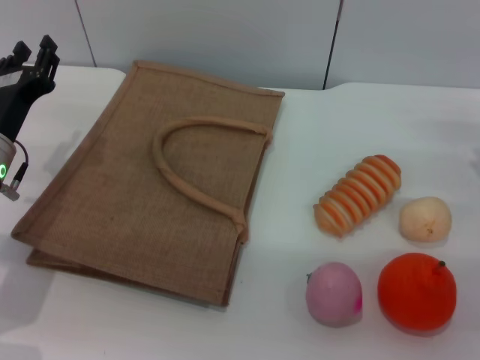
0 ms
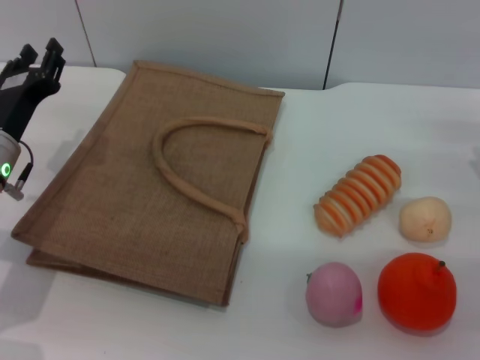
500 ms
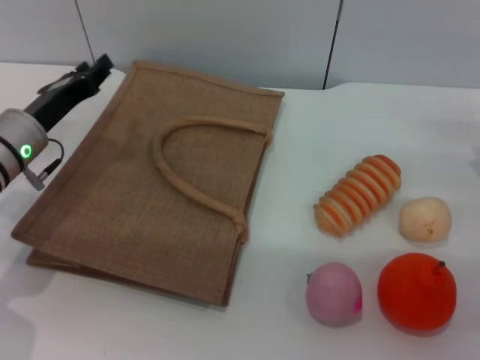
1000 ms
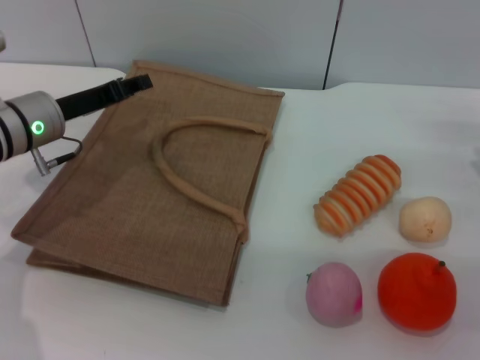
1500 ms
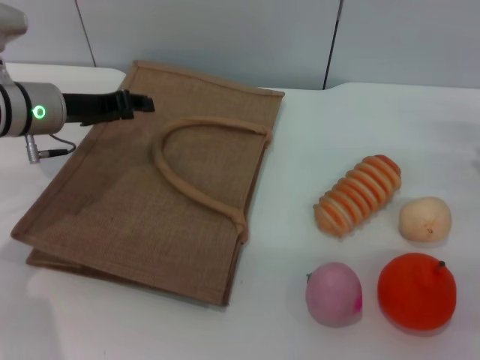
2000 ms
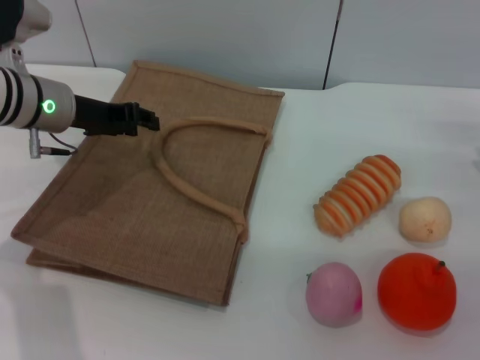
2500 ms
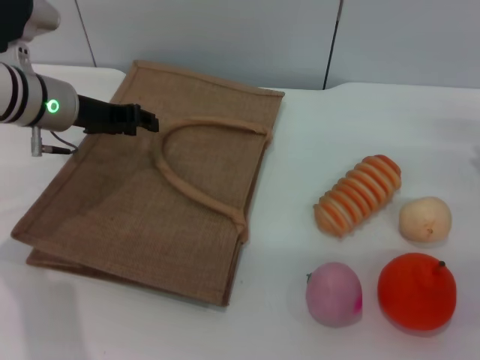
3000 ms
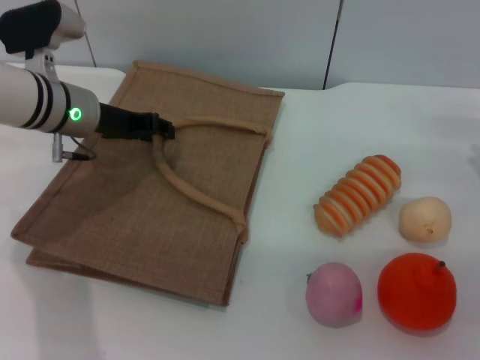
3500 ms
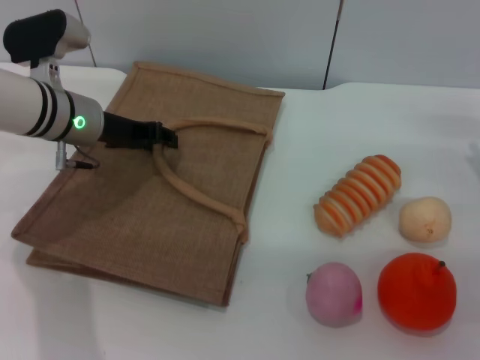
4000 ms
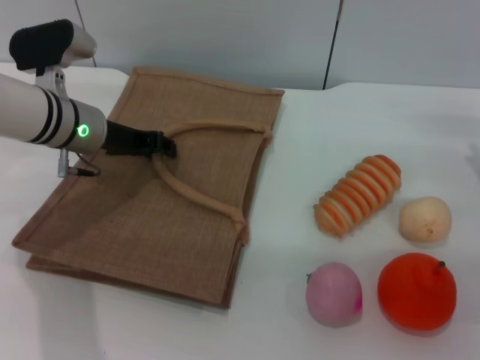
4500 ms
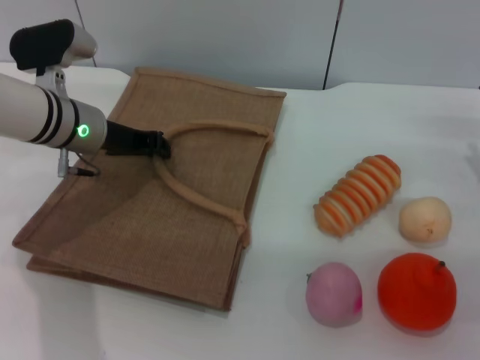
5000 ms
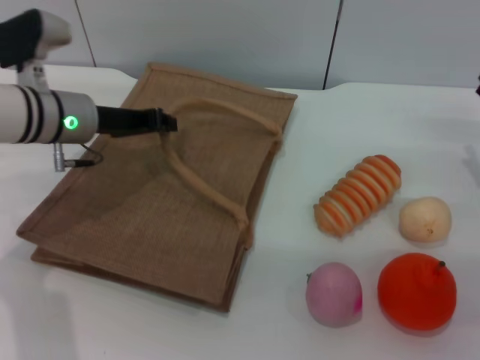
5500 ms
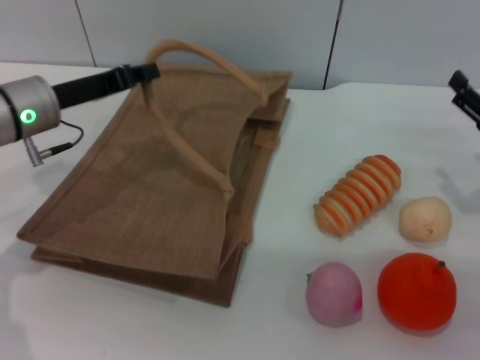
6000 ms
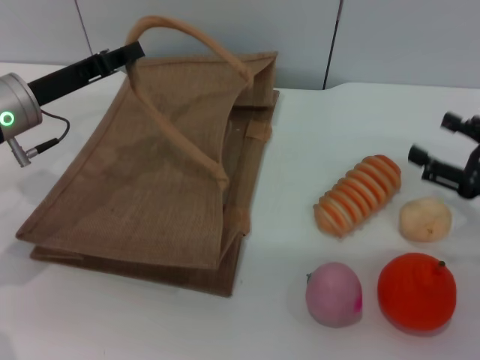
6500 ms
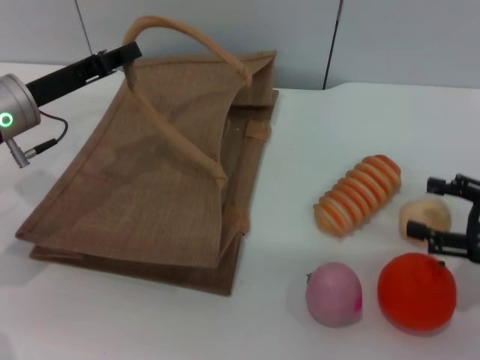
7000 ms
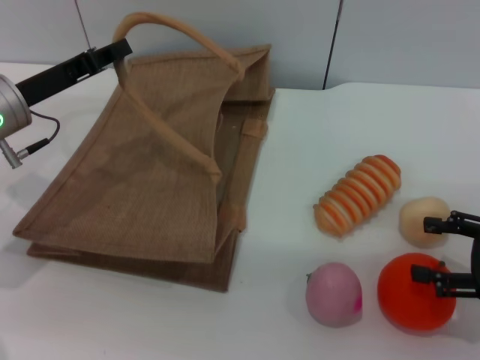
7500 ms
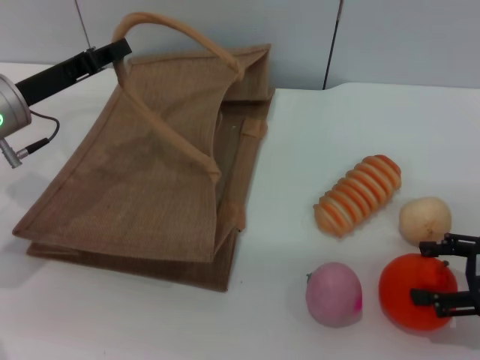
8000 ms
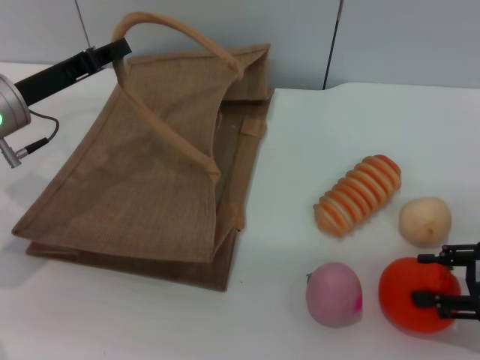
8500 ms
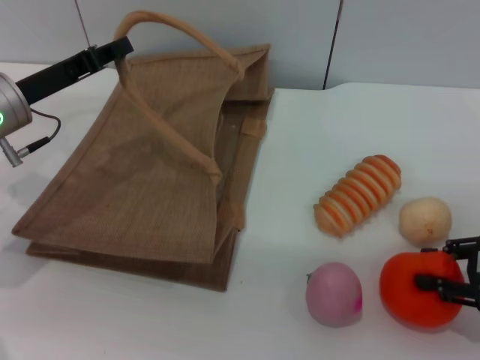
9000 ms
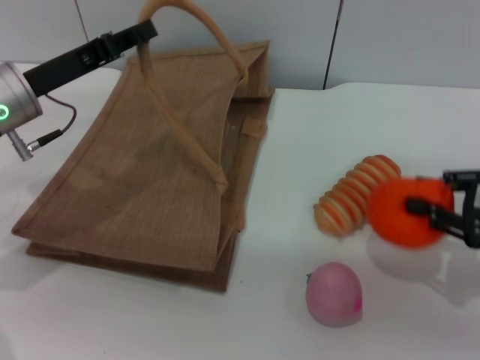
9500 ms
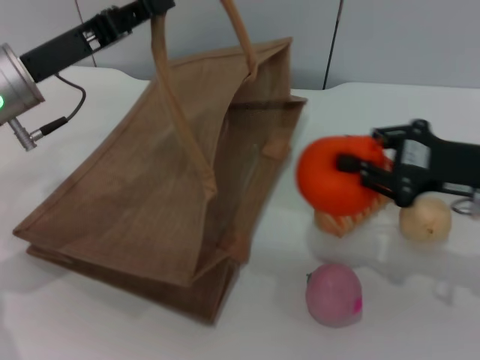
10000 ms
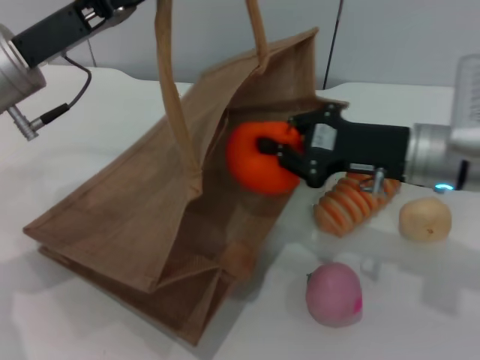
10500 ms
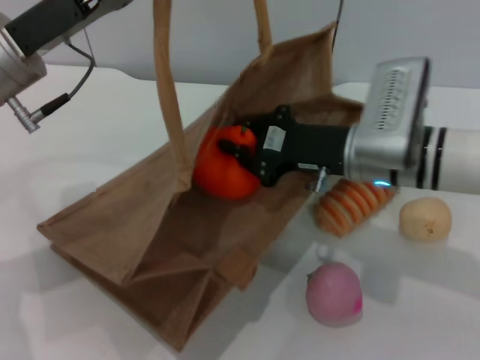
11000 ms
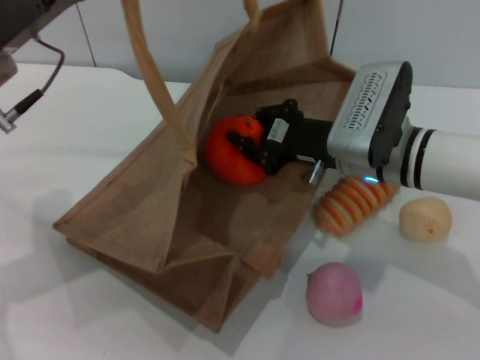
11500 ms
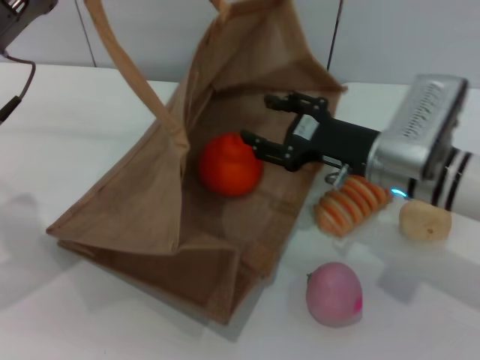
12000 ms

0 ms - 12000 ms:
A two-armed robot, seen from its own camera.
Task of the whole recording: pick up the orange from the table and place it in the brown handbag.
Step, 0 ms - 5500 ms: Lift the woven bag with the left gripper to open it.
Step, 6000 ms - 9500 ms: Pick up the orange with the right gripper.
0 ms - 2000 ms: The left gripper moves forward, approximately 10 cm.
2000 ms - 4000 ms: The grippers stay close to where they were, moving slightly.
4000 ms - 6000 ms: The left gripper shifts by about 5 cm, and closes up.
6000 ms - 8000 ms: The right gripper moves backward, about 5 cm.
8000 ms - 10000 ms: The left gripper shifts by about 5 cm. Meanwhile the right gripper is displaced to the left and forward by some 10 cm, and closes.
10000 ms - 12000 ms: The right gripper goes roughly 10 cm to the left, and opens up.

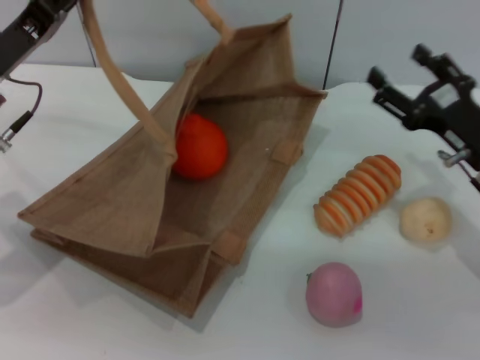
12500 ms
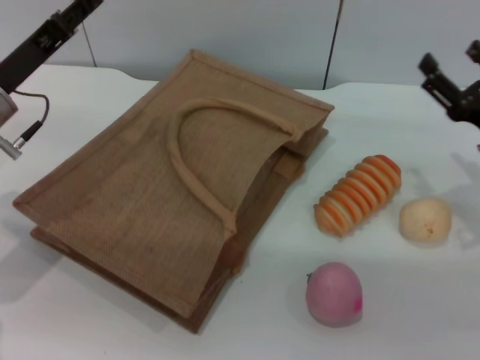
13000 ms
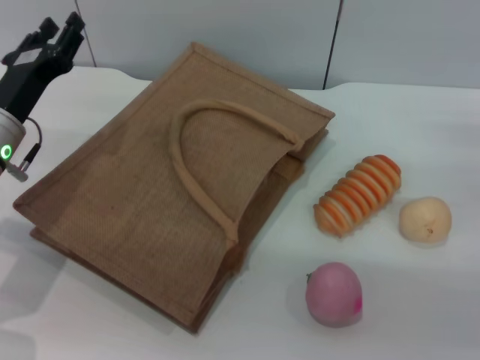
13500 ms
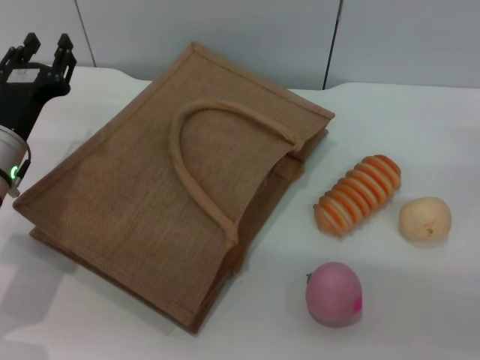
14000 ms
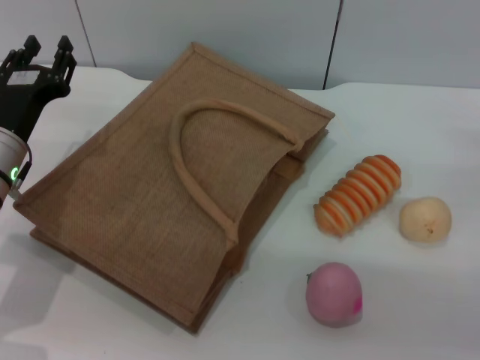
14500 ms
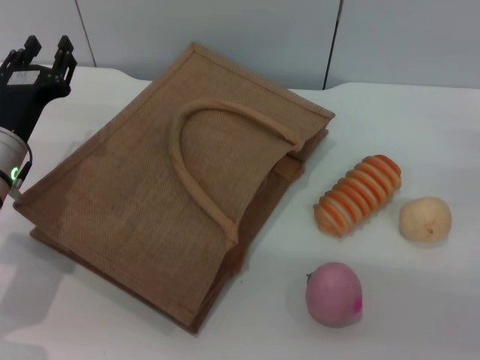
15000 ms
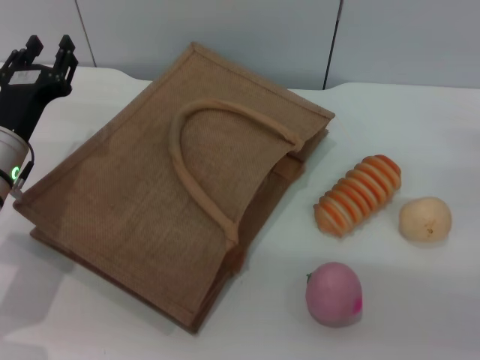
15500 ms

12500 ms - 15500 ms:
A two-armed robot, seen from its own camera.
Task of the whole recording: pick up the orange from the table and place it in the brown handbag.
Step, 12500 ms - 13500 ms: Lower the woven bag with the left gripper to close it.
12500 ms - 14000 ms: The left gripper heads downward, covering approximately 5 cm, and opens its fingers. The right gripper is displaced to the right by approximately 10 cm.
14000 ms - 15500 ms: Neither gripper changes place.
